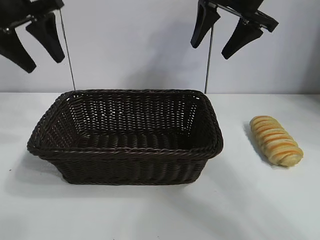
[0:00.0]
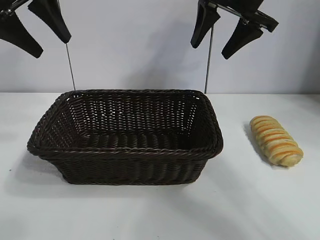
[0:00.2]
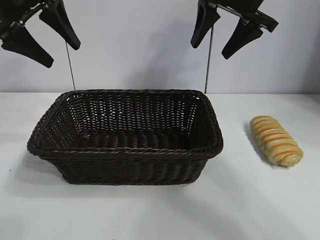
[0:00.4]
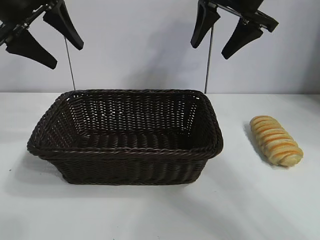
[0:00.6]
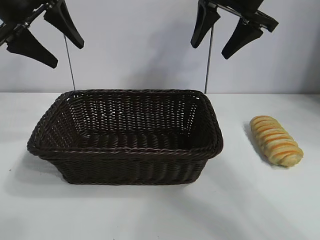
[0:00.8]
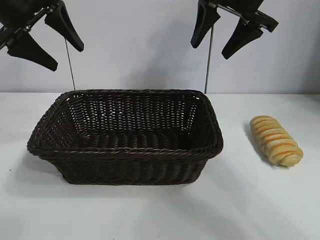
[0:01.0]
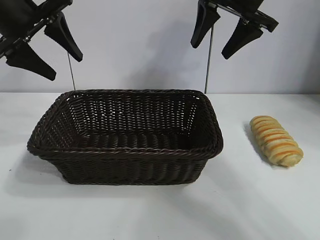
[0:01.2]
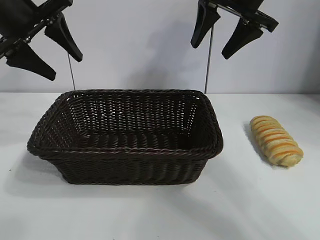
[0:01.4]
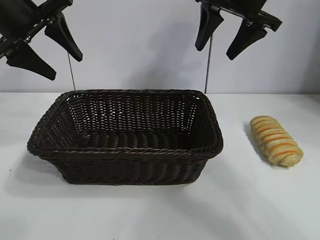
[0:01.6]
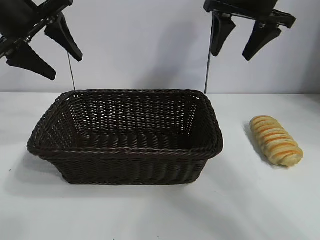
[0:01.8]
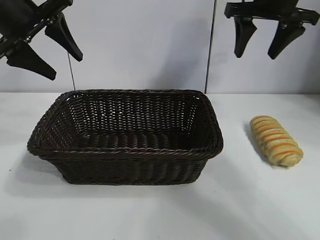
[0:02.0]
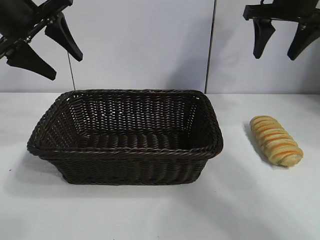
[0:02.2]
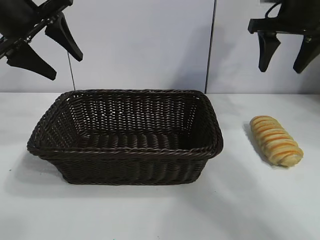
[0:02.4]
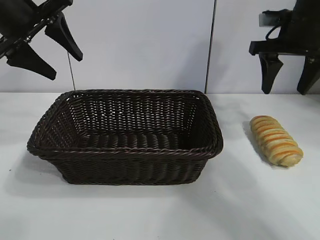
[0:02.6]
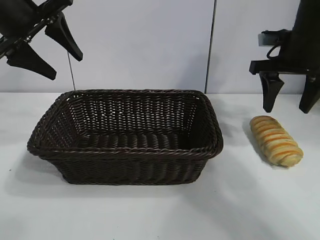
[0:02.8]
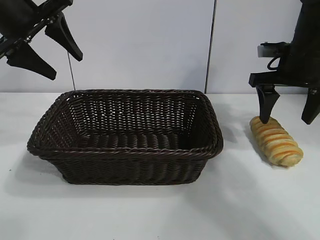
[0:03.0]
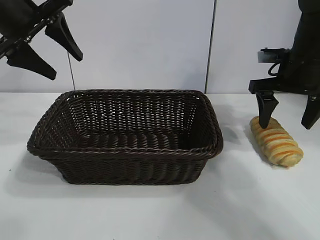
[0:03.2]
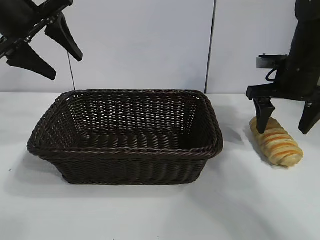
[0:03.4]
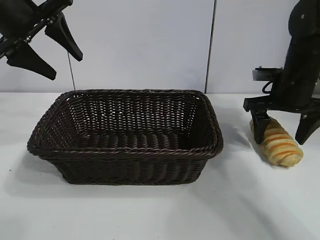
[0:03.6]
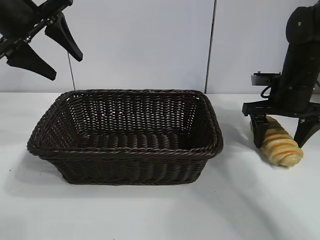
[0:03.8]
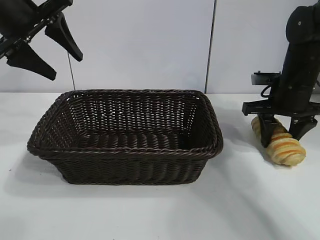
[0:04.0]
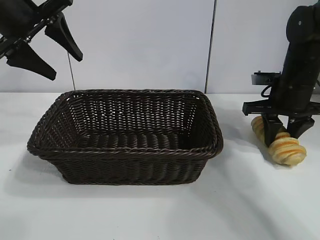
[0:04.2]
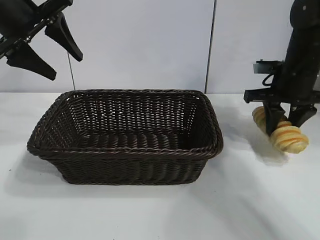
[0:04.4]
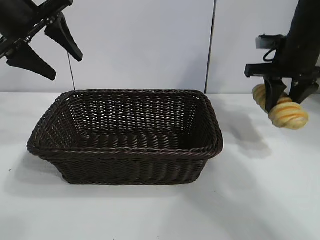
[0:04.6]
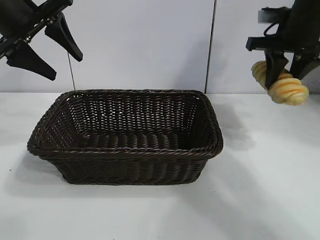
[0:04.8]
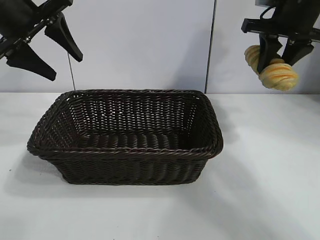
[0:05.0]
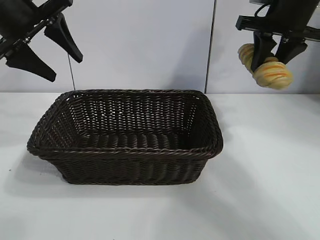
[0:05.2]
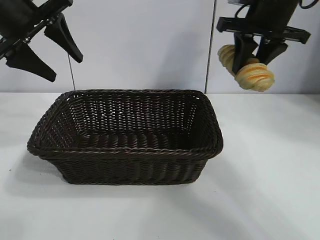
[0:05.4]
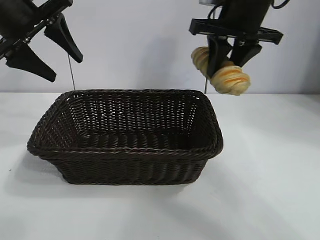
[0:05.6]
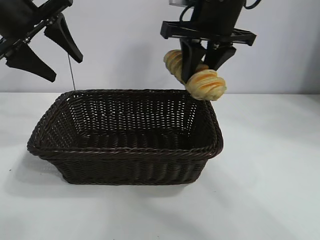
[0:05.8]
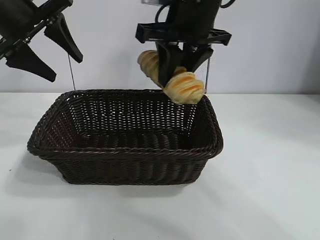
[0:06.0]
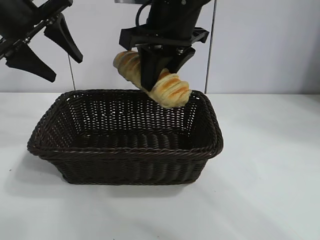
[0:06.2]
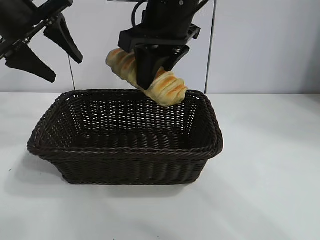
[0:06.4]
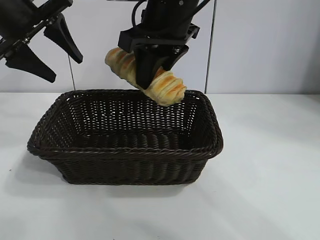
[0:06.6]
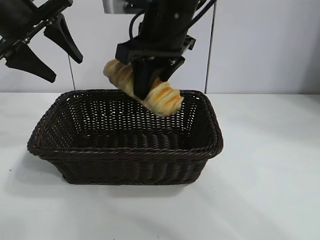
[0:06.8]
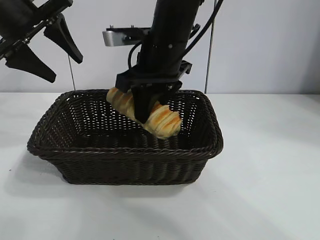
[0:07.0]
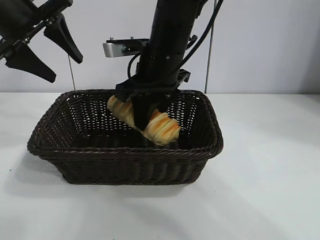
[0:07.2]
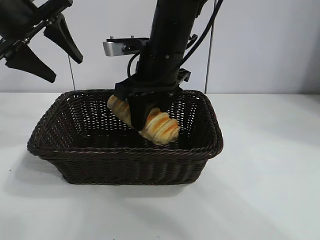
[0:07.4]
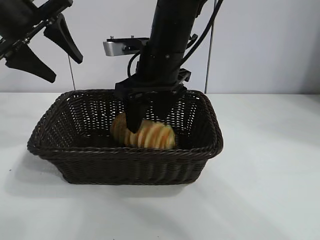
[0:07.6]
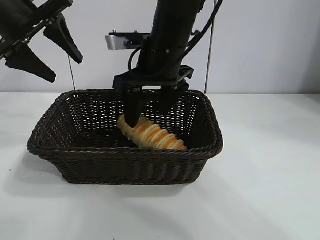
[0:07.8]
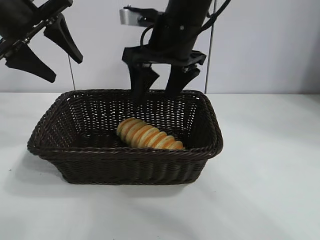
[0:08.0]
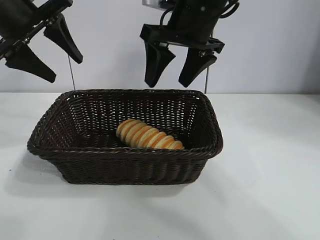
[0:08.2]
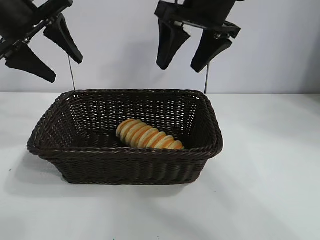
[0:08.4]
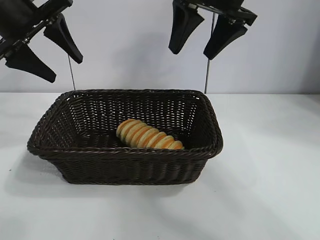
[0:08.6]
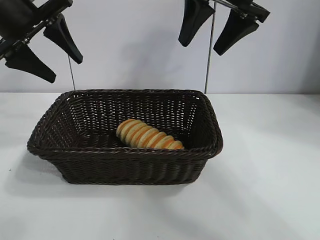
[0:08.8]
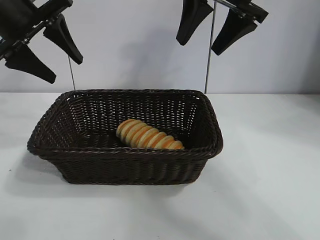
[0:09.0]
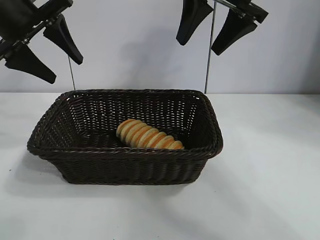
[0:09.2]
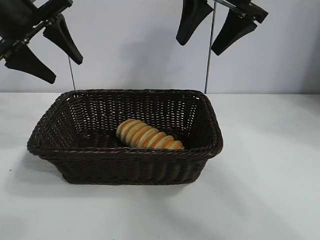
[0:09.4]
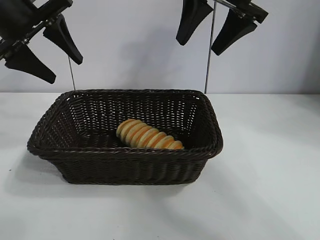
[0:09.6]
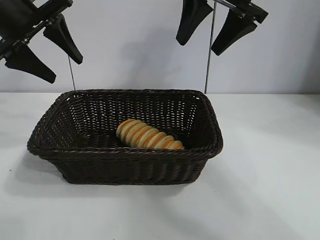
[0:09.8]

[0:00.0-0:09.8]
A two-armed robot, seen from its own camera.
Task of the whole recording: pick up the long bread and put it into the basket.
Step, 0:00.0 to 0:04.0: Grasp the long bread with right gripper.
Step, 0:04.4 to 0:07.8: Place the long bread in the basket with right gripper.
